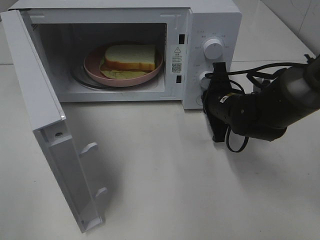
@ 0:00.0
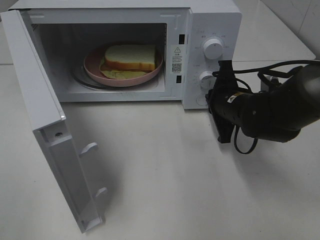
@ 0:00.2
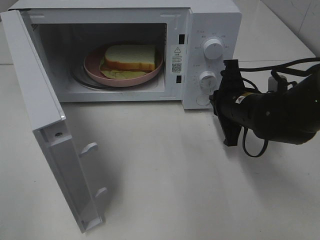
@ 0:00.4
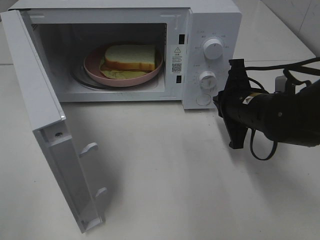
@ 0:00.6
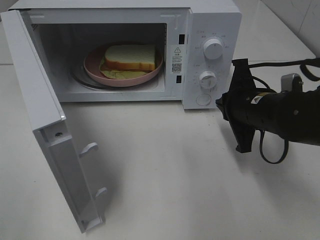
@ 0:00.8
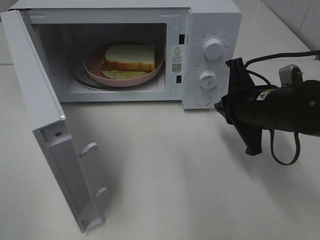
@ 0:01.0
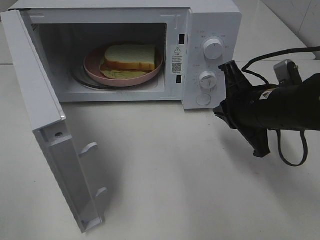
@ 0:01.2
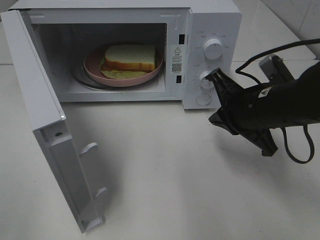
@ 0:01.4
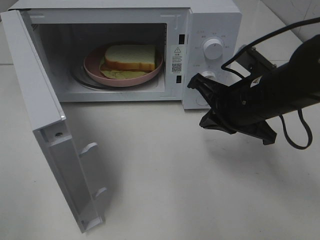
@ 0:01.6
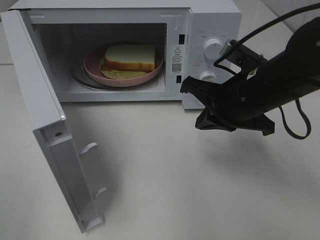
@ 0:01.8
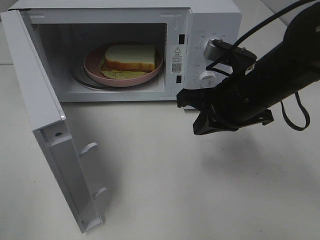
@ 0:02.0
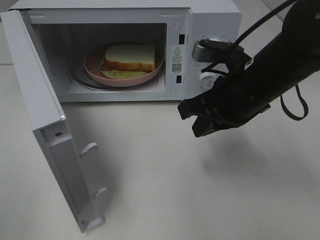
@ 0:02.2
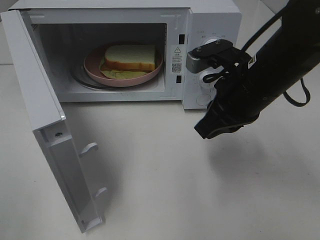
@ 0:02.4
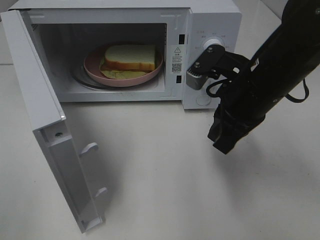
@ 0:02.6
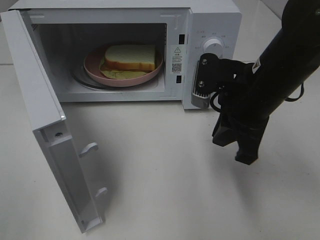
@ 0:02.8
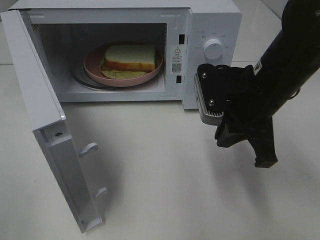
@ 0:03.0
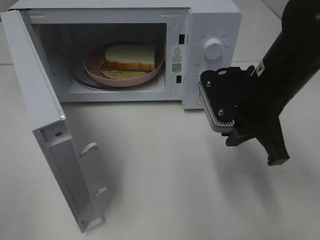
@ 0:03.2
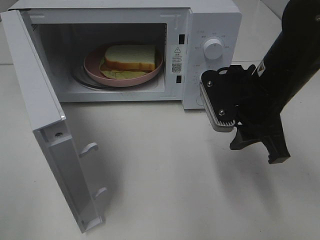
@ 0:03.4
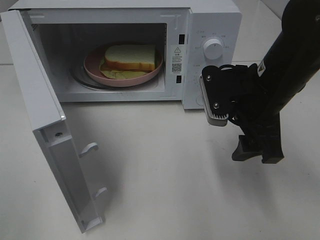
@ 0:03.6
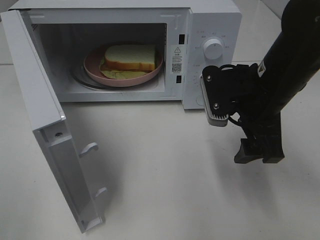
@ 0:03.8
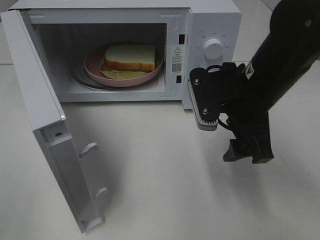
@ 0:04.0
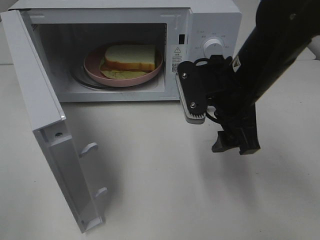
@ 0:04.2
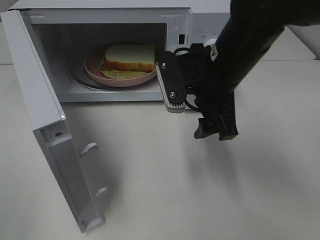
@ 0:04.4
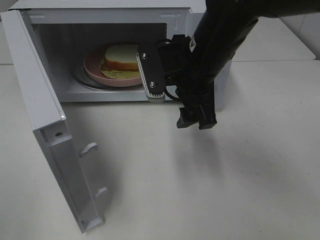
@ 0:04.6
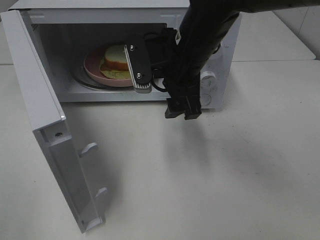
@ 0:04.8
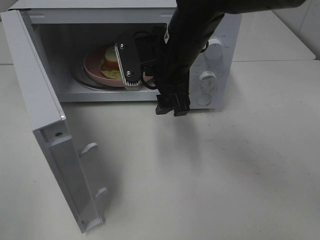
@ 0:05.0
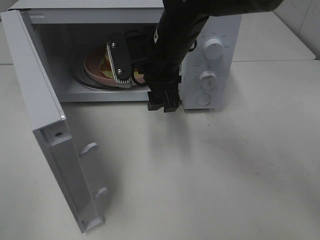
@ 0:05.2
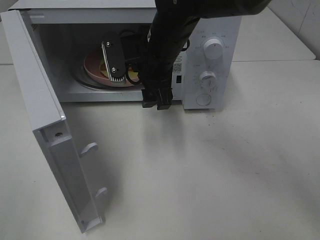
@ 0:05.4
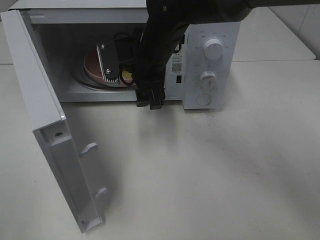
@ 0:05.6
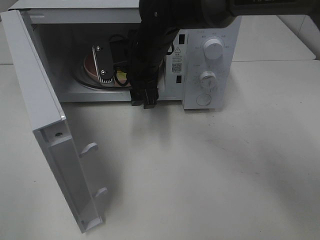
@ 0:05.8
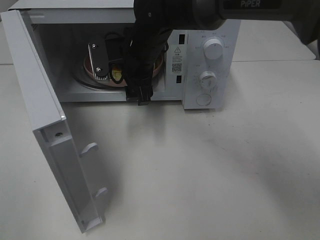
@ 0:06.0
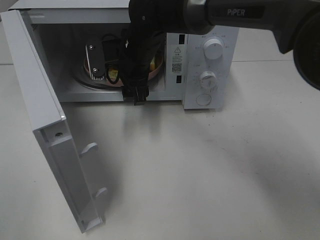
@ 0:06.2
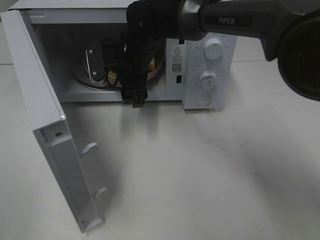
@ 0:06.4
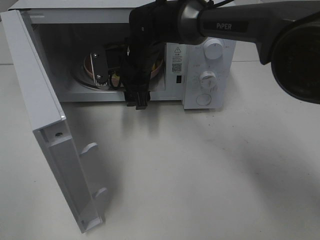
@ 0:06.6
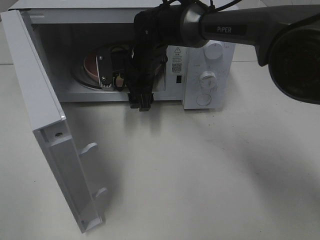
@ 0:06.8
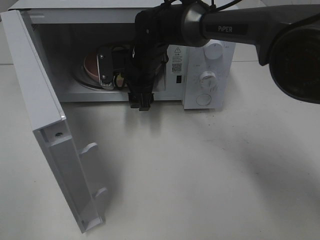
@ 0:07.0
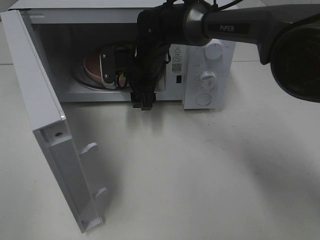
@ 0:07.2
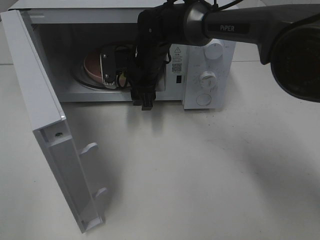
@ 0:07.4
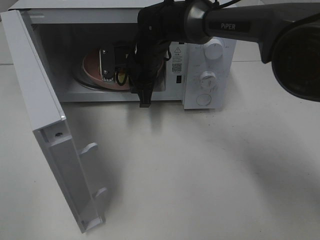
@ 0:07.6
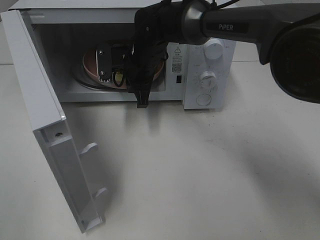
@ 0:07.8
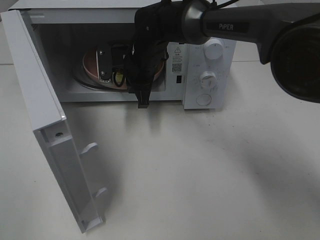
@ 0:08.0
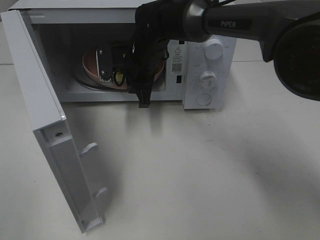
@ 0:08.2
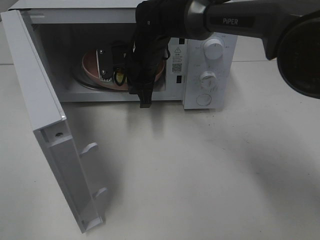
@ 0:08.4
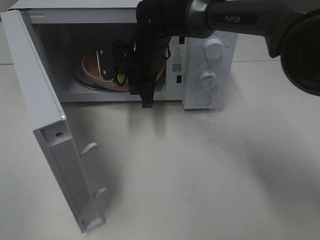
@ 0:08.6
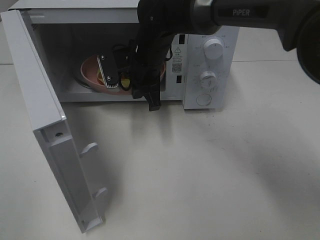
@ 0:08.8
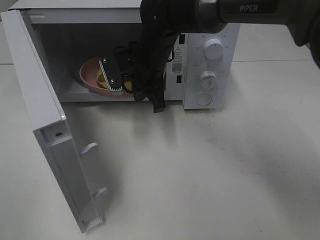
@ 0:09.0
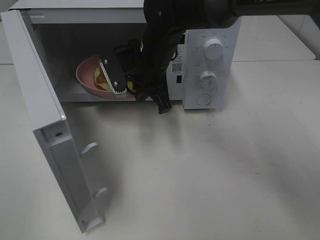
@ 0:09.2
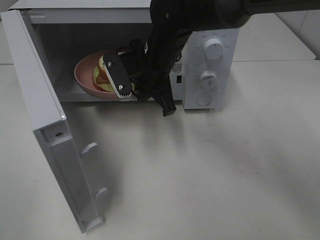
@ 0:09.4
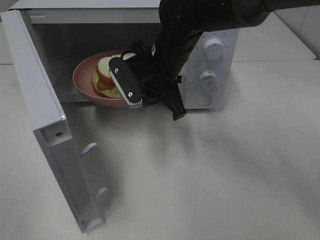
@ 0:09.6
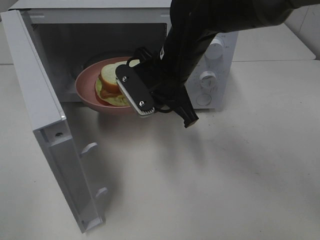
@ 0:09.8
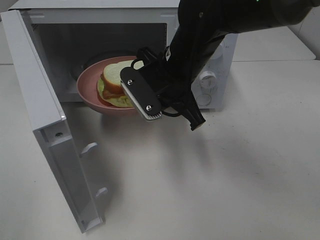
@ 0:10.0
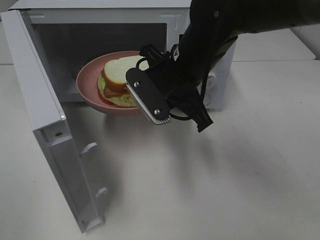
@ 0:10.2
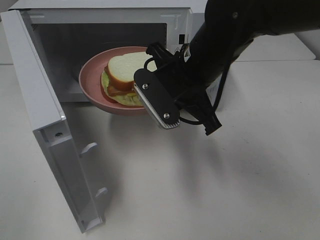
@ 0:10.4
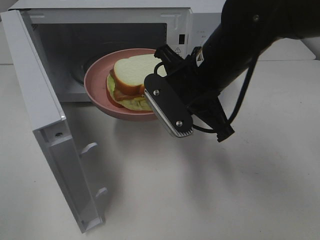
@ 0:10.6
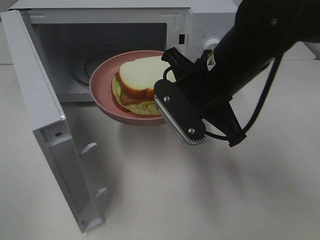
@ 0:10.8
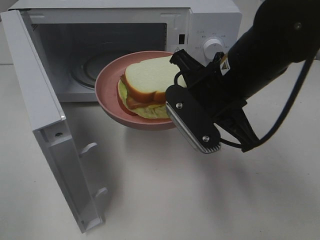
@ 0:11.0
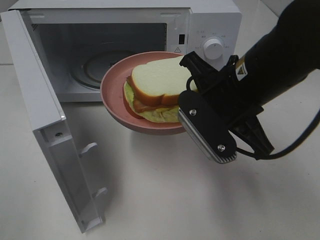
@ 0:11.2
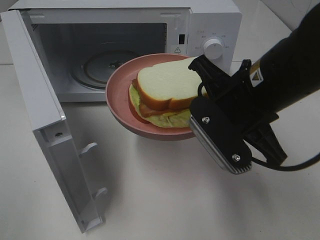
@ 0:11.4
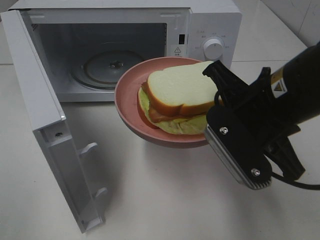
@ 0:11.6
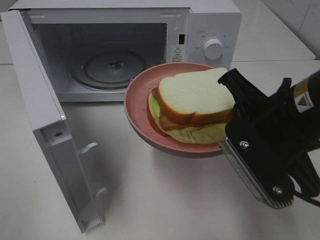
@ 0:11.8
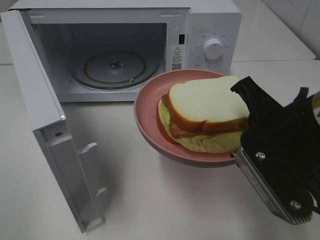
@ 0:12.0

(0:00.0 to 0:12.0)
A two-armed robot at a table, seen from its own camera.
Task of the whole recording: Heat Sandwich.
Step, 0:00.4 - 0:08.0: Right hand: grab the plate with the sandwich.
0:00.0 - 0:01.6: The right gripper heads upward and backward, covering some 10 cm.
0:03.0 - 0:04.4: The right gripper goes about 5 cm to the left, and opens.
0:04.4 - 0:06.0: The right gripper heads forward and to the left, covering approximately 15 cm.
0:06.0 - 0:07.6: The right gripper changes place by about 5 cm, and closes.
0:07.6 - 0:09.0: There are only small adjustments of the grippers.
0:09.0 - 0:10.4: The right gripper heads backward and to the right, covering about 15 cm.
0:10.4 - 0:12.0: The right gripper travels backward and to the right by about 15 cm.

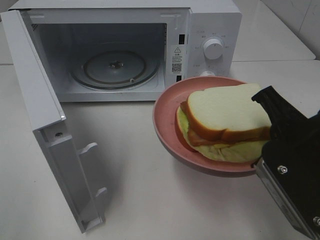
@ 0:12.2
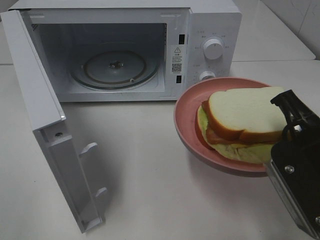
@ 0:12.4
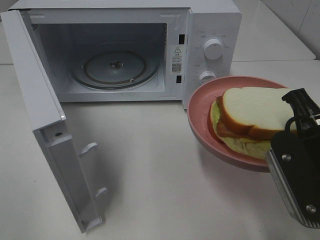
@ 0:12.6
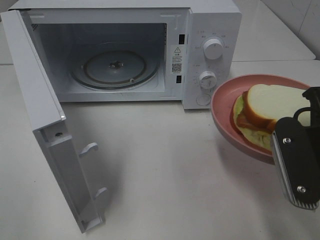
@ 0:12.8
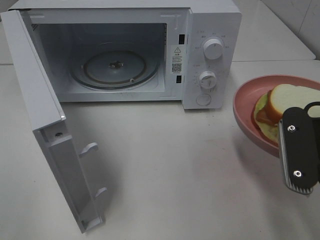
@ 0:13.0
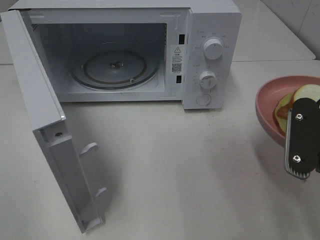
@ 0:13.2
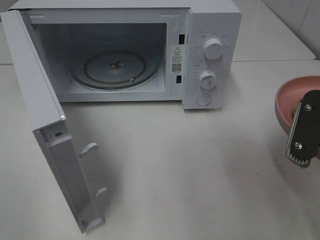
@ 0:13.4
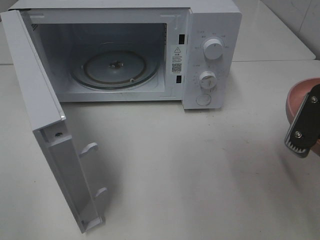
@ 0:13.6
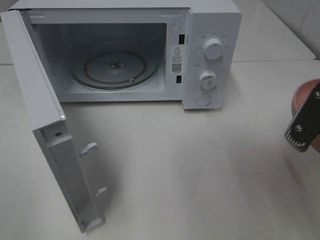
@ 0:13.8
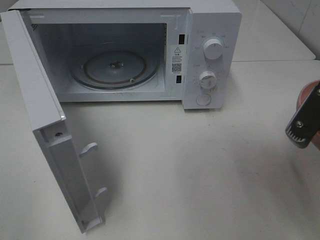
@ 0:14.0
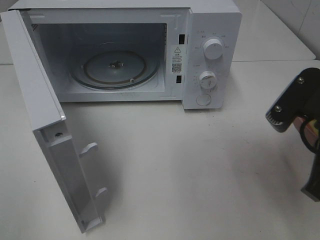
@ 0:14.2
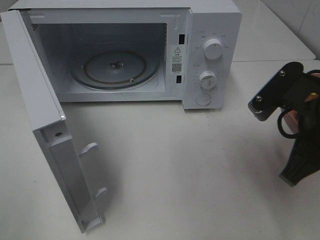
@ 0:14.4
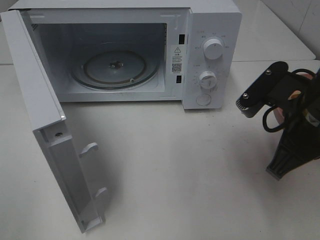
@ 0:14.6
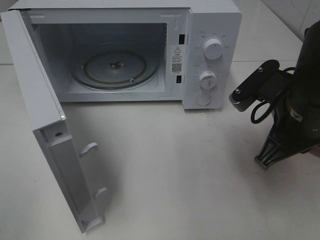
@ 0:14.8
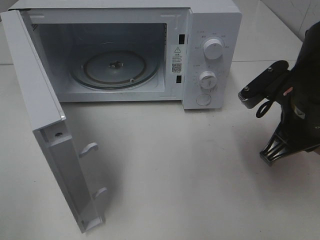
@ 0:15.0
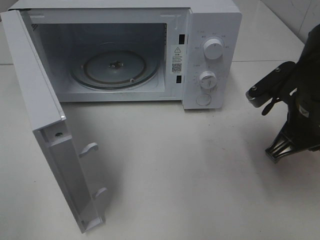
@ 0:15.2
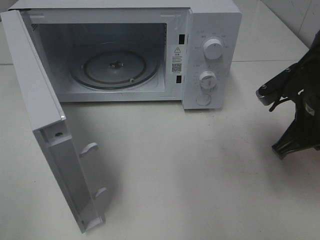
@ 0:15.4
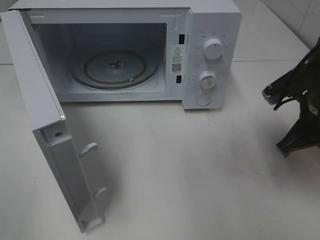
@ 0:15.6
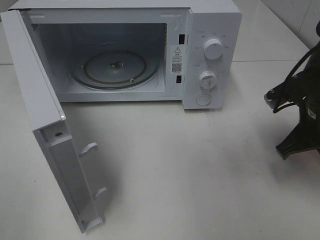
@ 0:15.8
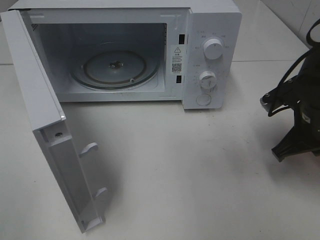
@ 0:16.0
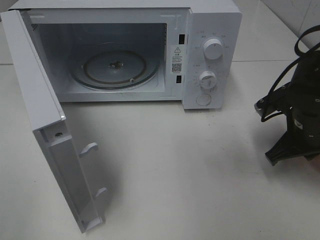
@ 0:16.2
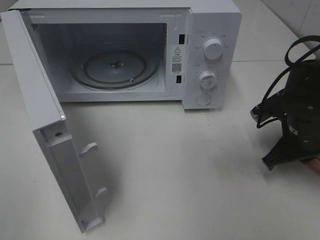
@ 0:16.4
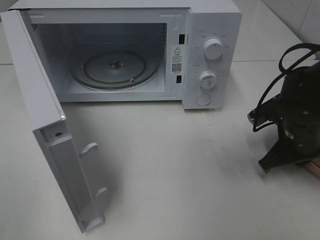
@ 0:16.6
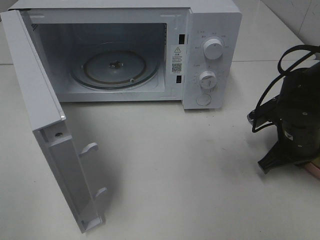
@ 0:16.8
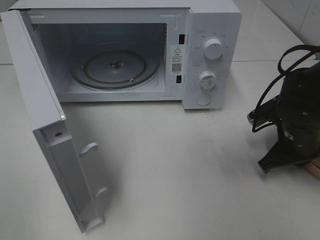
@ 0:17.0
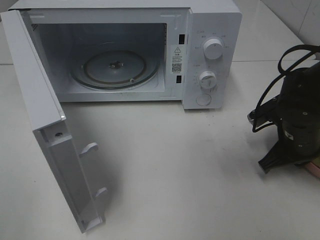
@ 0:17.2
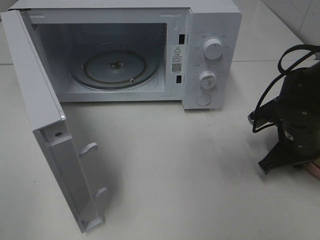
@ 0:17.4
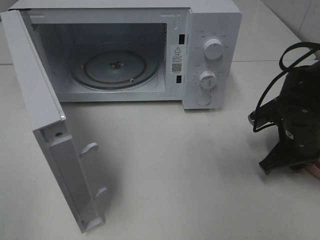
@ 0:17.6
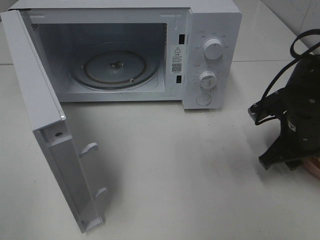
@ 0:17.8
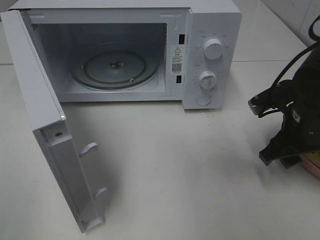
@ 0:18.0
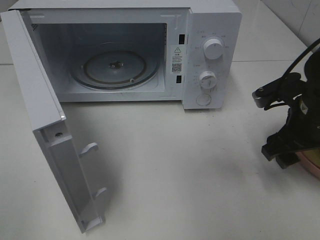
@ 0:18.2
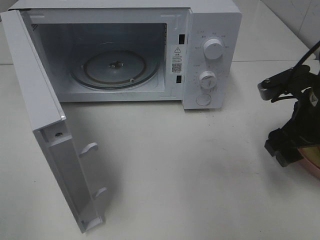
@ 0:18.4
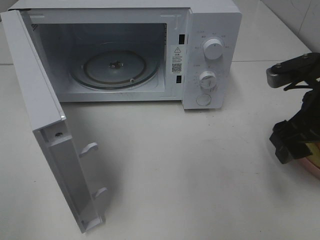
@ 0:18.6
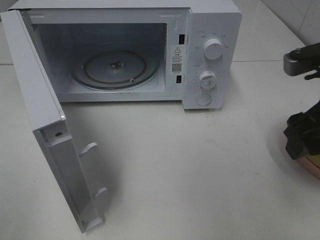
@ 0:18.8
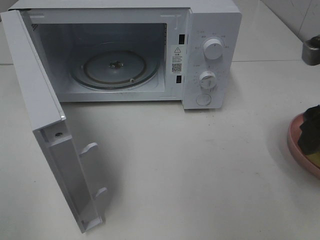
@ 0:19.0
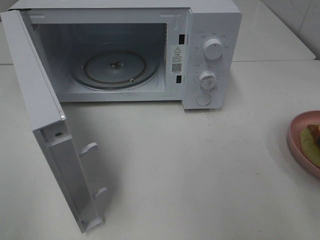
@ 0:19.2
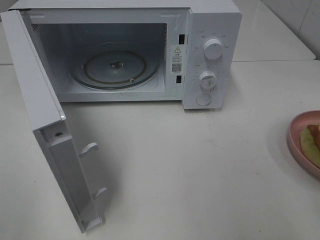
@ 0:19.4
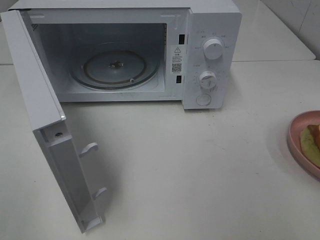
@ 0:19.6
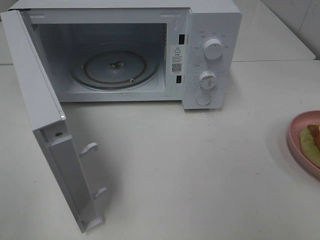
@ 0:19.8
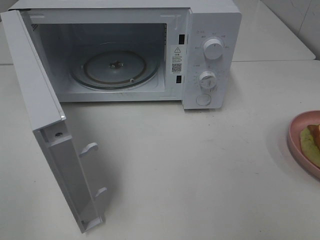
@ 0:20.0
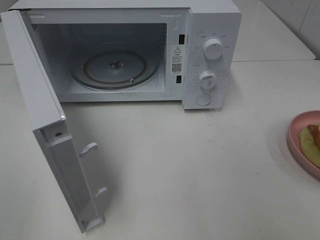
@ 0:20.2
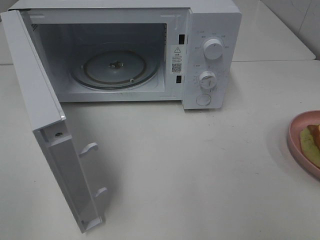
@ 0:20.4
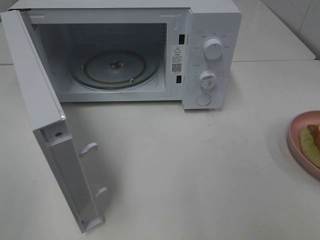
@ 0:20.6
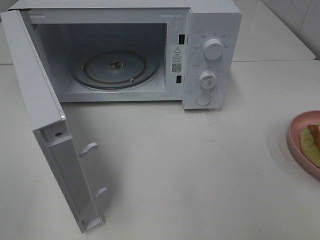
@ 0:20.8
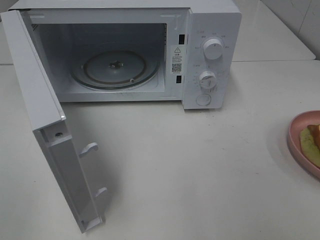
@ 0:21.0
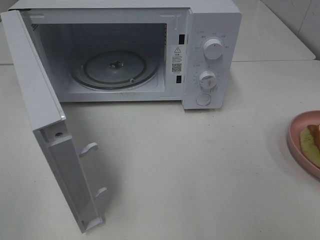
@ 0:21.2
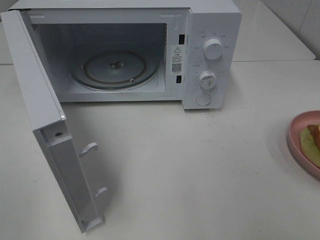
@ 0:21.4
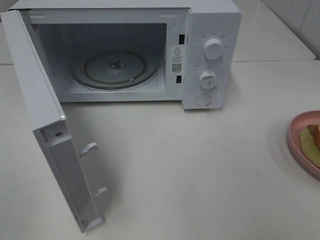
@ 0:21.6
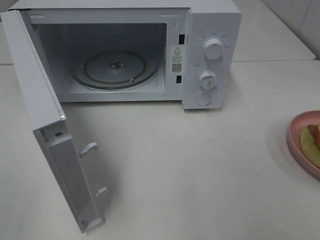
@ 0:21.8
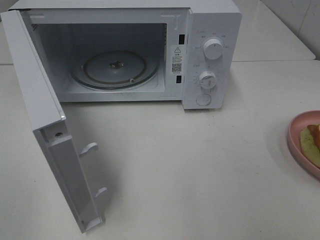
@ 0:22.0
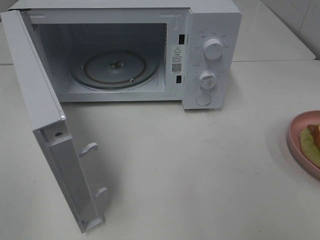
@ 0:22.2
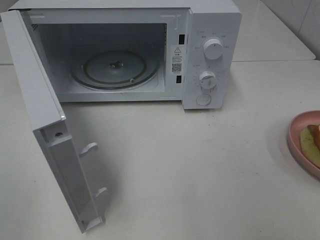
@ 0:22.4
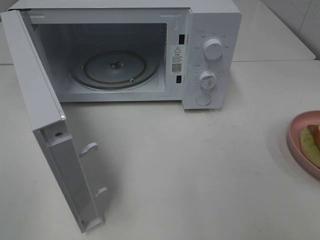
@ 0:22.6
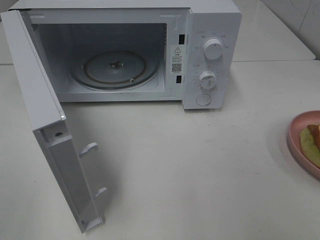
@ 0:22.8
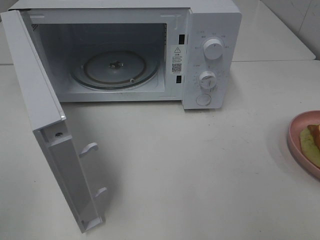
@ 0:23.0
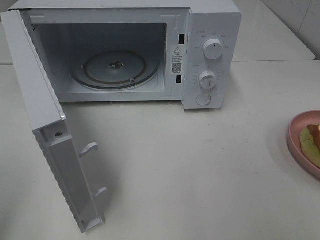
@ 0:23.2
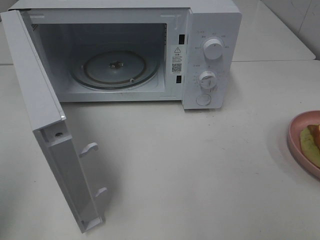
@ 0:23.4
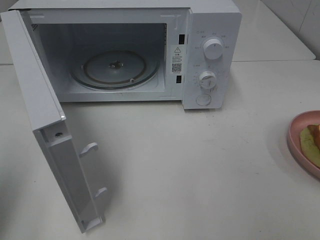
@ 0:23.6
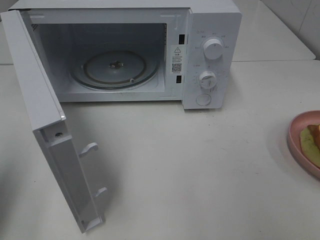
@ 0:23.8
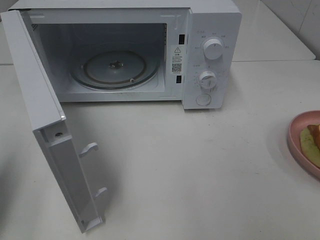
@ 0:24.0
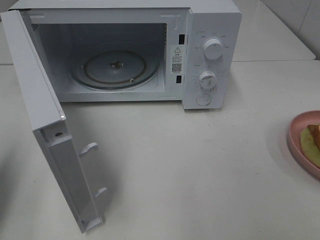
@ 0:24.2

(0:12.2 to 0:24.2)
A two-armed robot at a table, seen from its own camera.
Task of the whole recording: Heat Sandwich.
Step, 0:12.2 - 0:19.0: Right hand: place the plate on the table.
0:13.8 - 0:15.2: The right gripper is displaced forward by approximately 10 cm.
0:15.2 - 0:16.6: The right gripper travels downward by approximately 10 cm.
0:16.6 - 0:18.2: The right gripper shifts some 5 cm upward, and opens up.
0:18.2 - 0:19.8: The right gripper goes about 25 cm backward and upward.
0:21.2 - 0:22.6: Both grippers stay about where they are.
0:22.6 - 0:24.2: The left gripper travels forward by some 15 cm, and closes.
